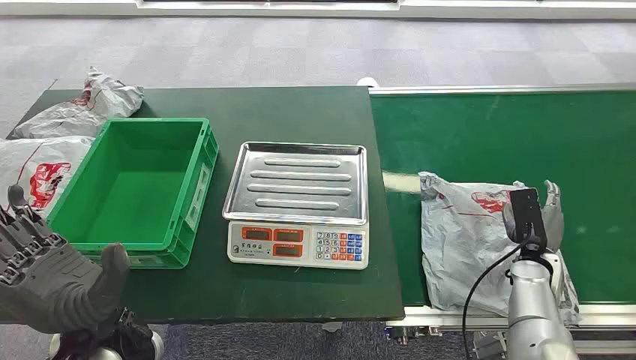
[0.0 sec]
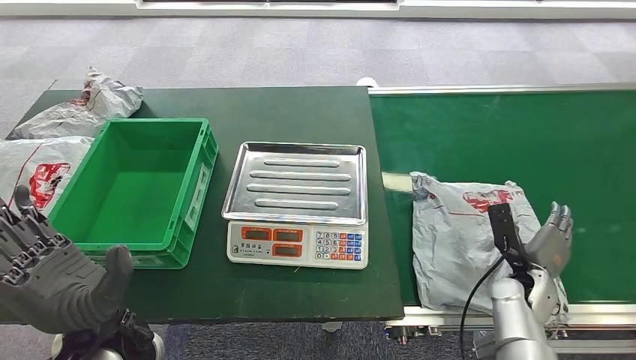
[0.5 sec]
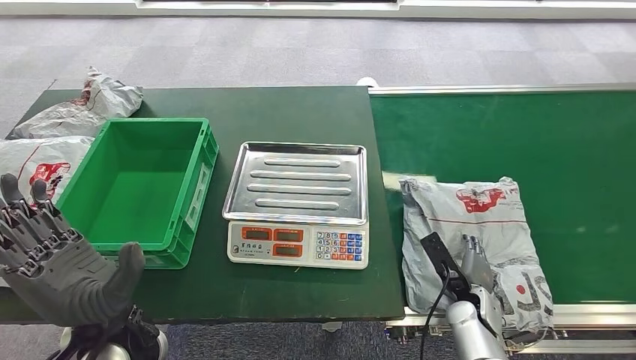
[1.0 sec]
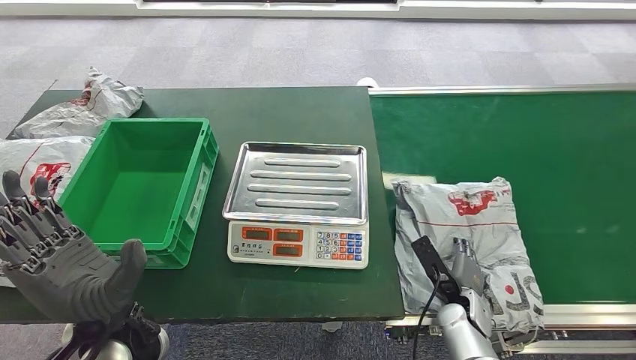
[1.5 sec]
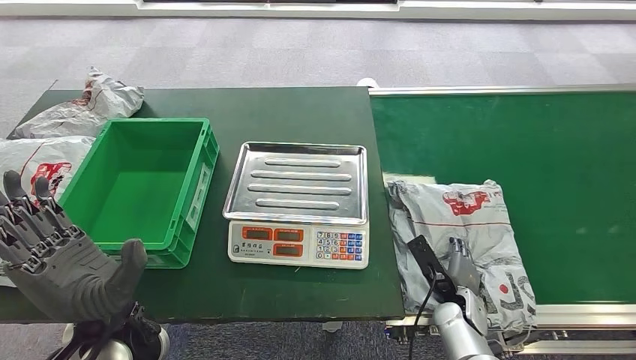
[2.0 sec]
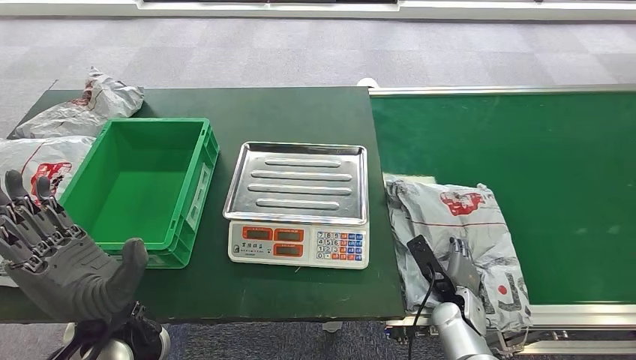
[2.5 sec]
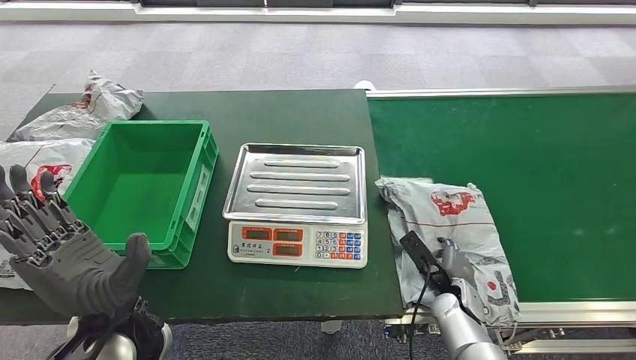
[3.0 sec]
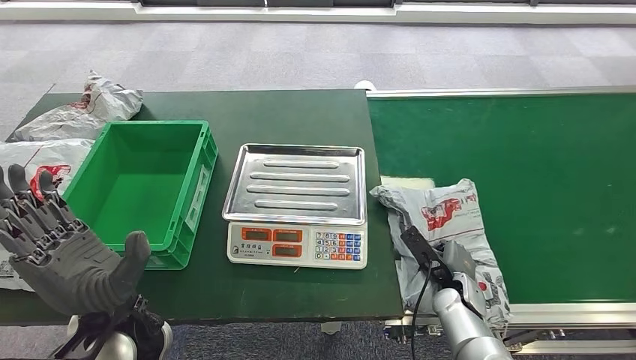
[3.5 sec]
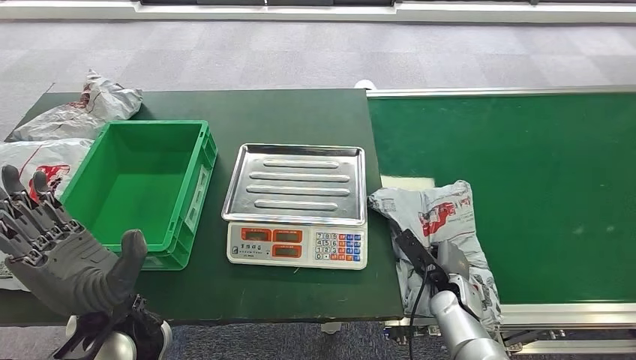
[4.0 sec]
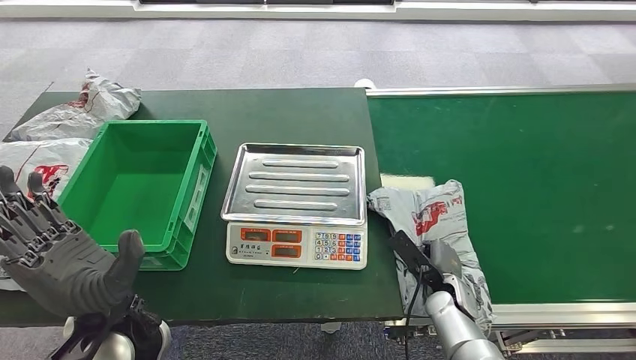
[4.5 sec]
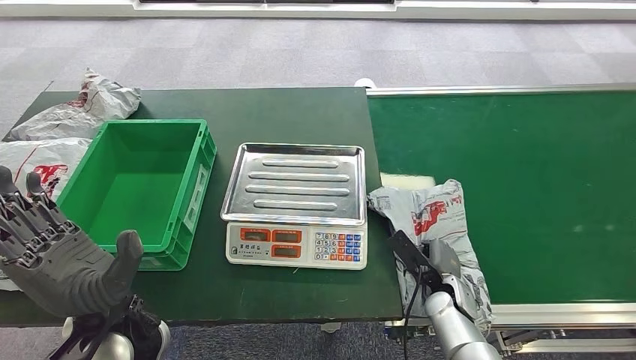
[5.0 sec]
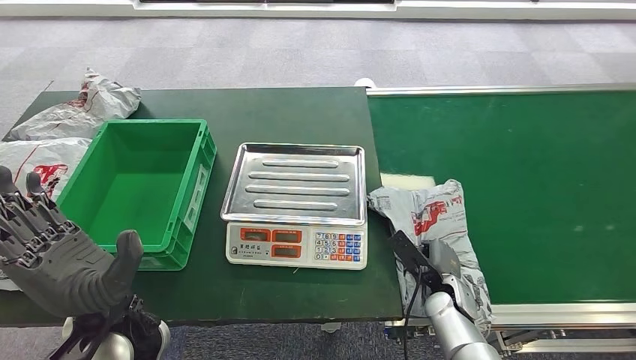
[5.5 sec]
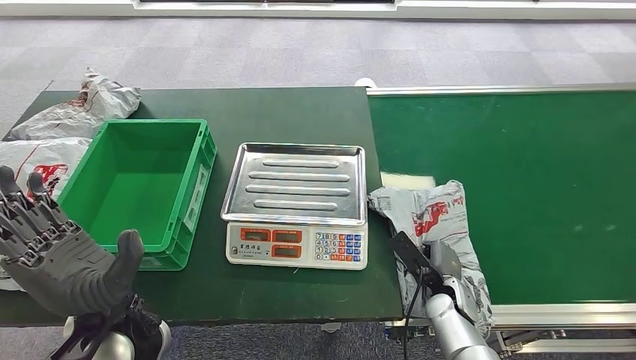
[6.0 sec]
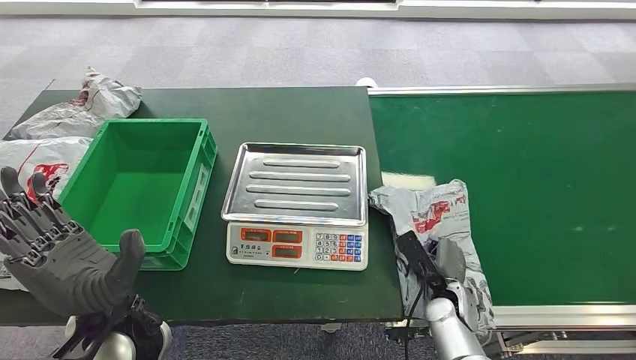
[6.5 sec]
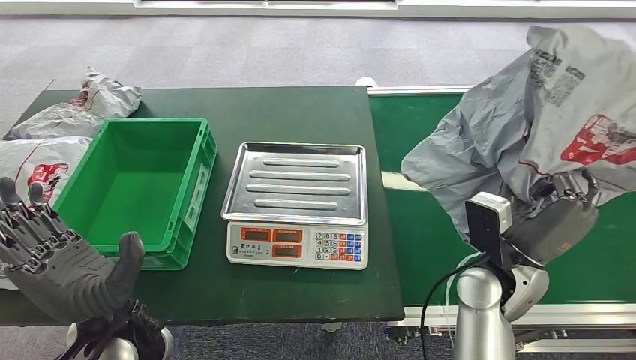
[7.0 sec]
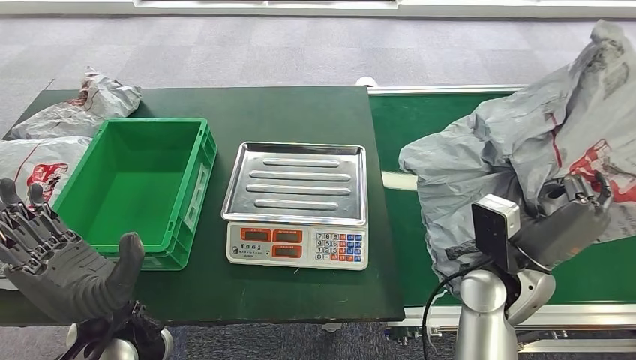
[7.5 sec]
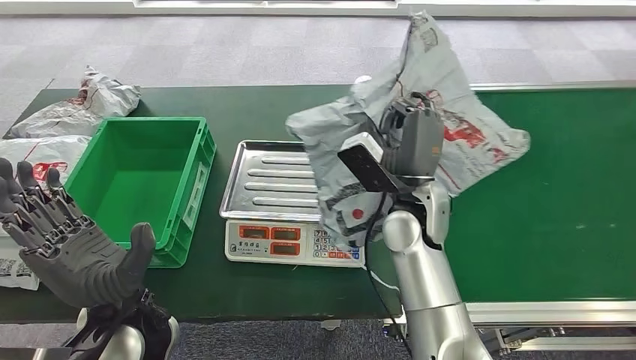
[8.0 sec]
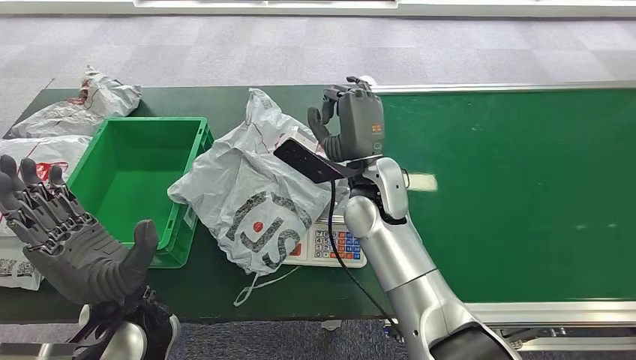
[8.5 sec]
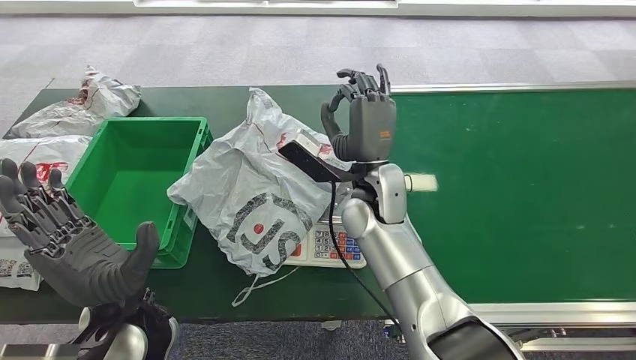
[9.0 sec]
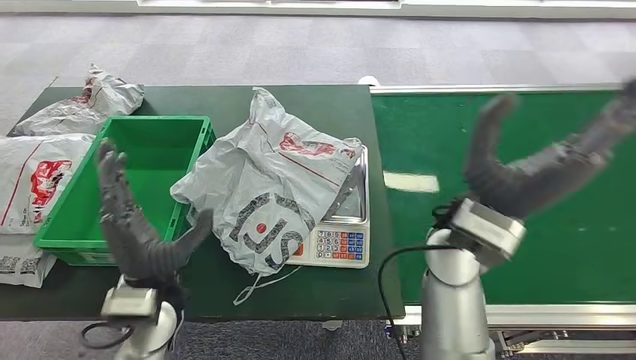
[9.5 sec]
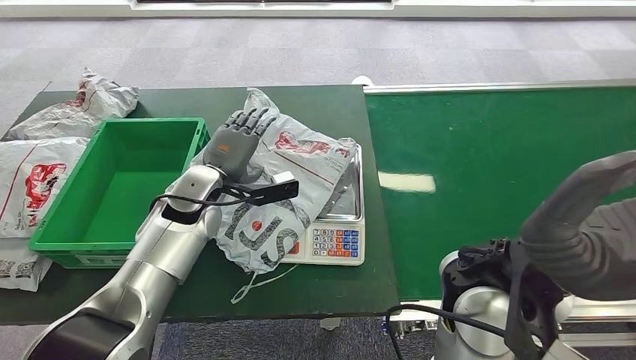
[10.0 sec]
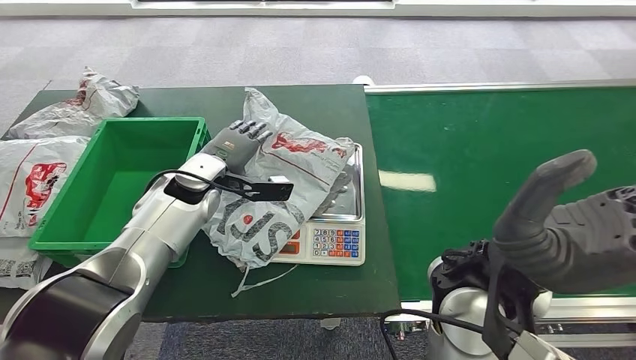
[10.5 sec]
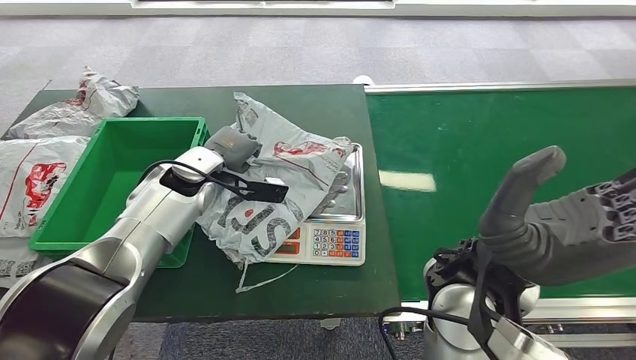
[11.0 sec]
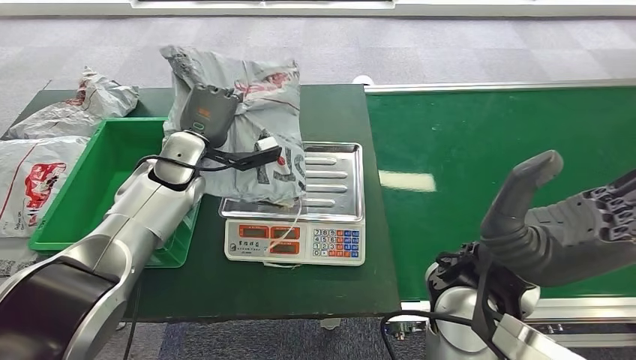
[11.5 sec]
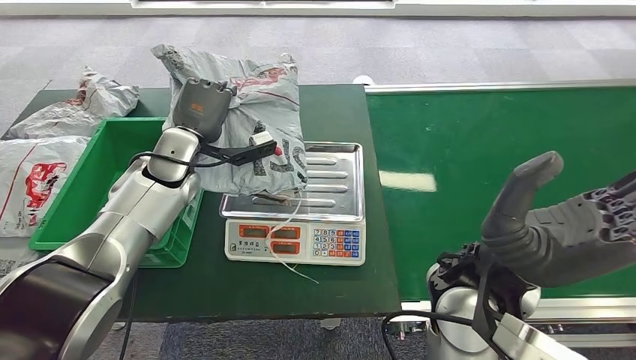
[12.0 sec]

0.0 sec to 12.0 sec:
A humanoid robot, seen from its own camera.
Task of the whole recording: Weigh the package on the weighing device and place it in the left basket.
Step, 0.0 sec to 7.0 sec: Pick up the package from the conveyor belt.
Step, 7.5 sec to 9.0 sec: Place the package onto the inbound machine.
Step, 9.5 sec to 12.0 sec: Pick up the package from the inbound machine.
2.0 sec to 6.0 sec: The hands stay close to where they were, moving slightly.

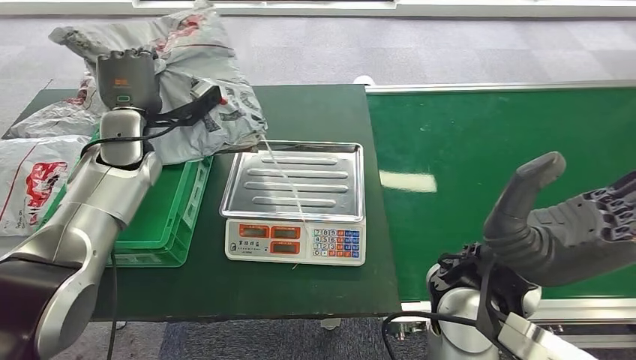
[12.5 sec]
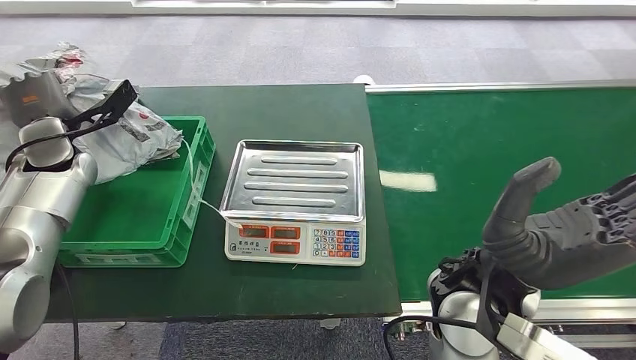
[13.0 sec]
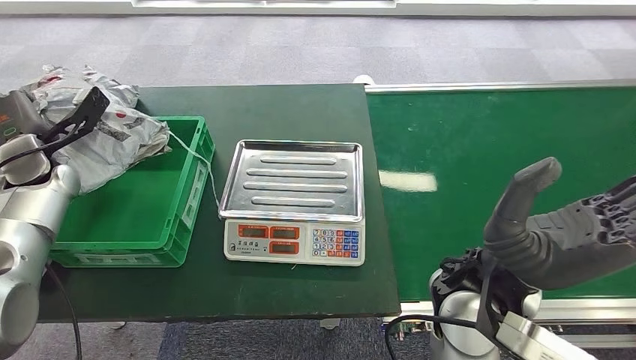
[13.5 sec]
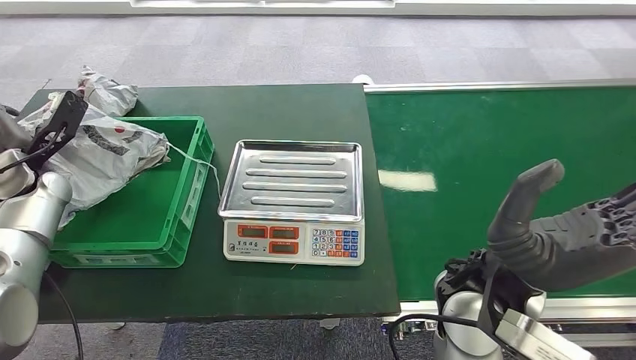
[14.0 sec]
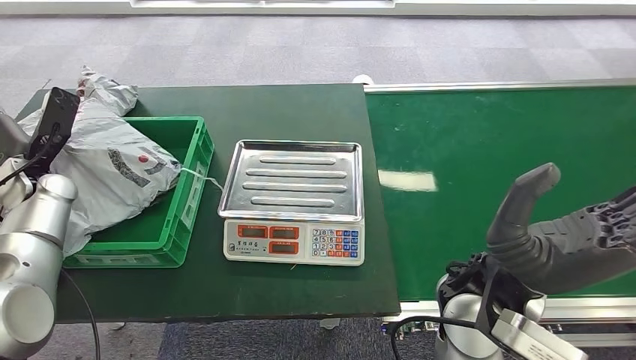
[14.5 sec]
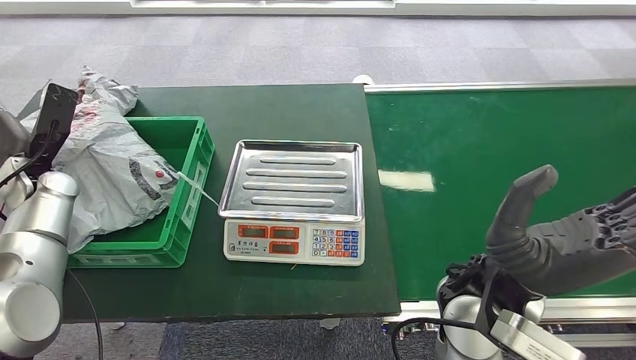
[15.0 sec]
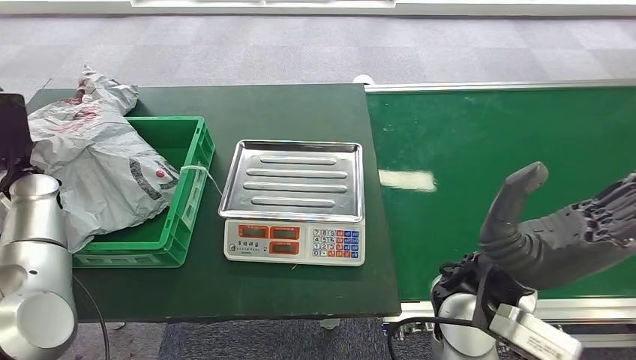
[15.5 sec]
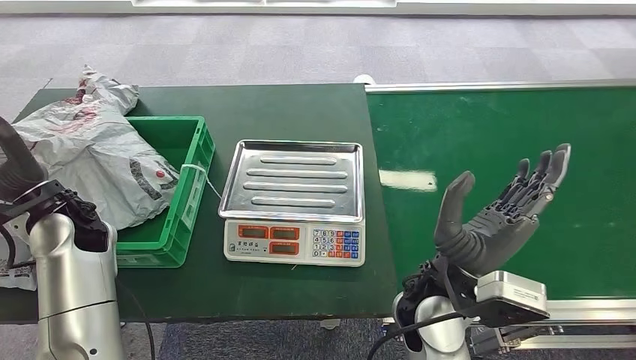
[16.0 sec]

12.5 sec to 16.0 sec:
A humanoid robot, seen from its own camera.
Task of the whole recording: Weigh the package on the weighing device and place it in the left basket.
Step, 12.5 sec to 16.0 sec: Place the package into the parcel locker.
